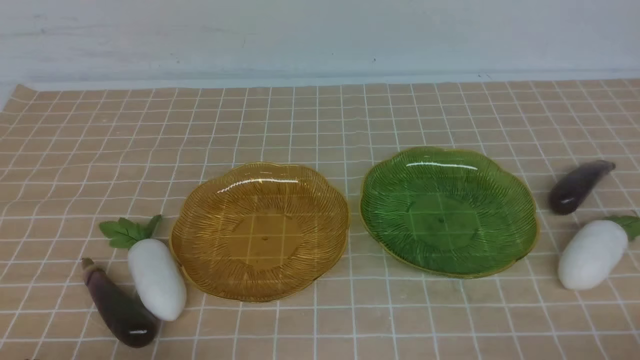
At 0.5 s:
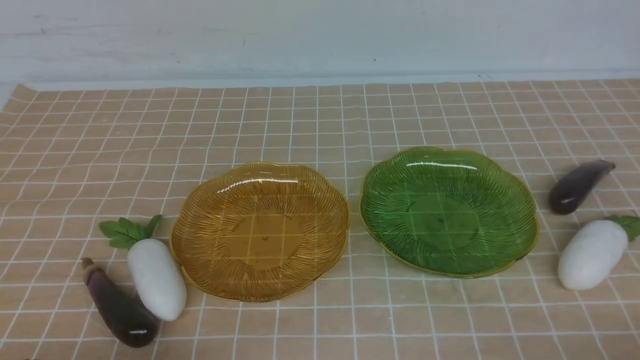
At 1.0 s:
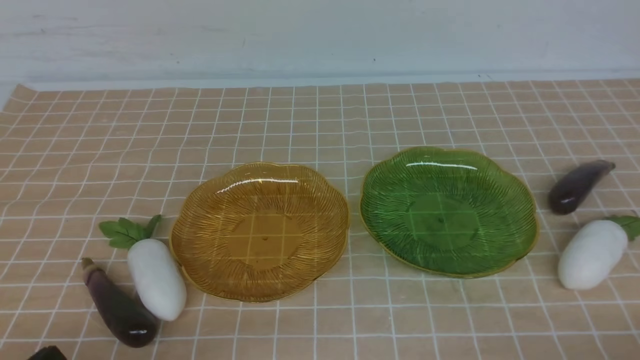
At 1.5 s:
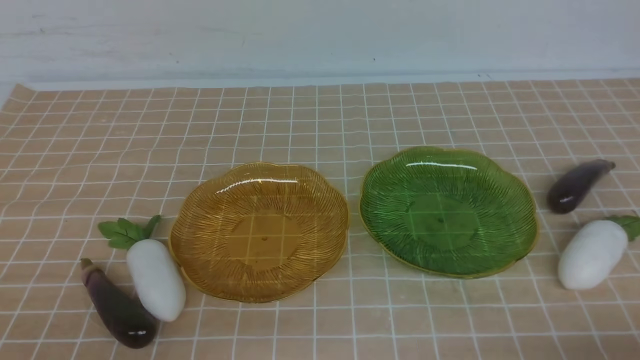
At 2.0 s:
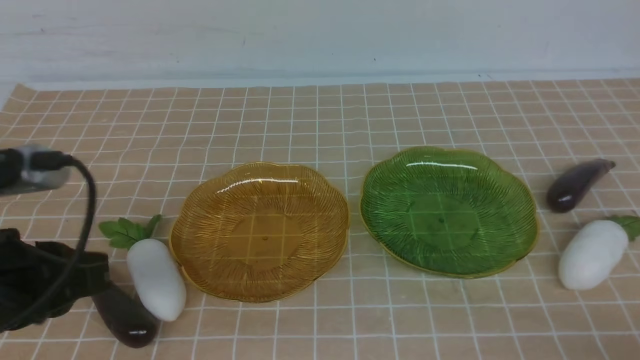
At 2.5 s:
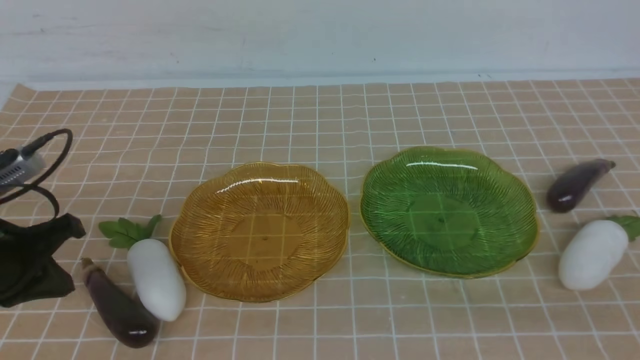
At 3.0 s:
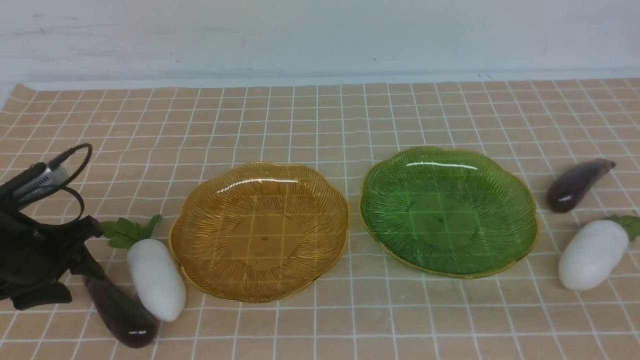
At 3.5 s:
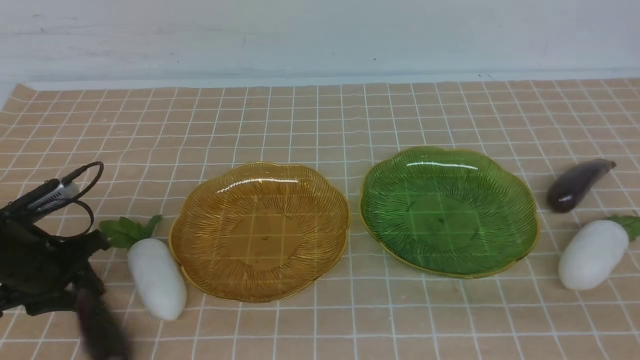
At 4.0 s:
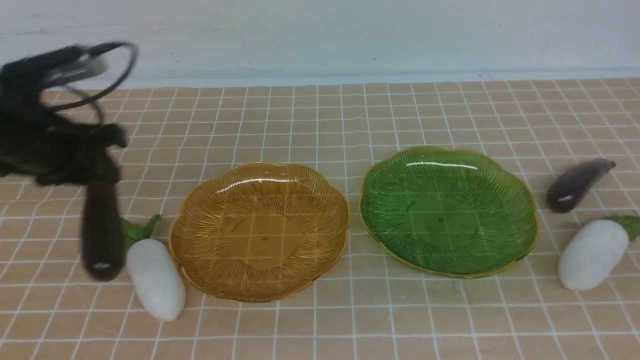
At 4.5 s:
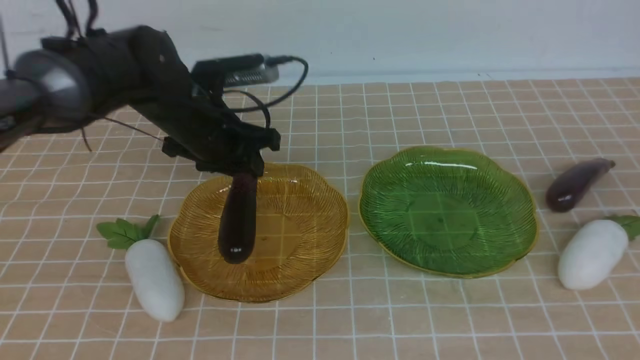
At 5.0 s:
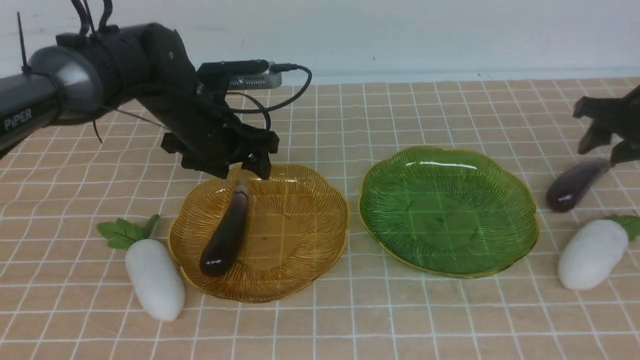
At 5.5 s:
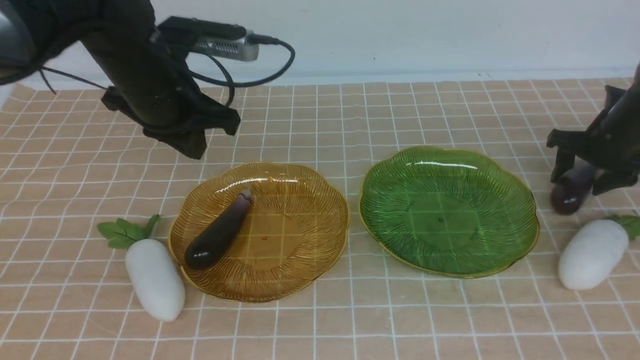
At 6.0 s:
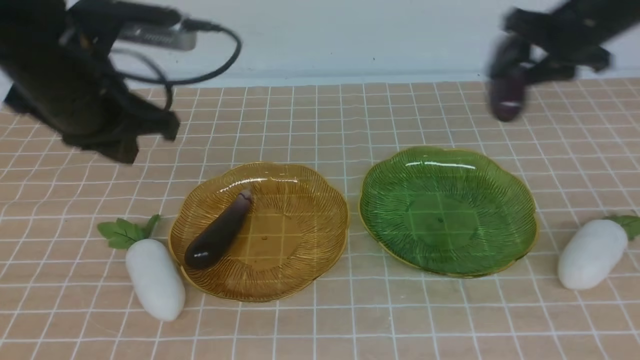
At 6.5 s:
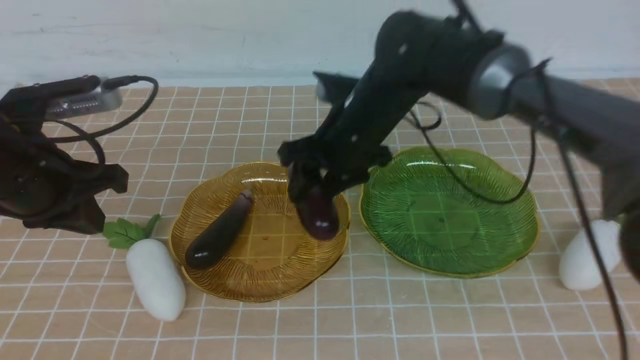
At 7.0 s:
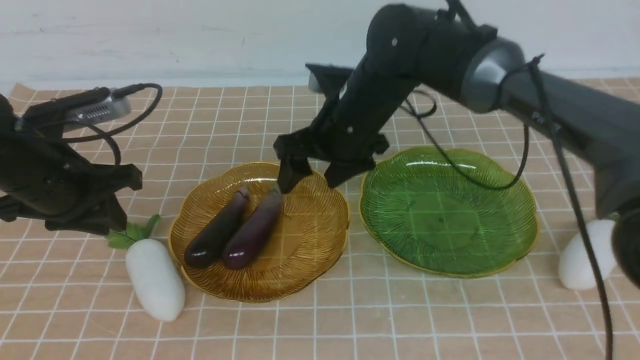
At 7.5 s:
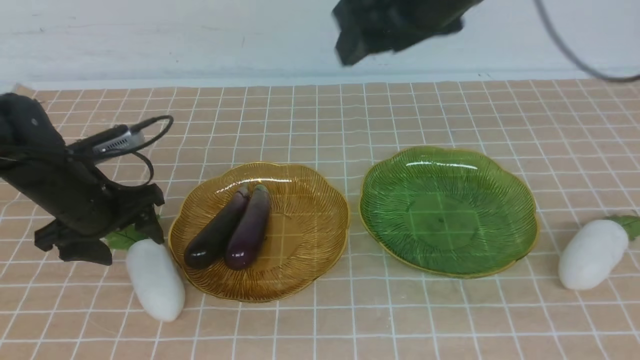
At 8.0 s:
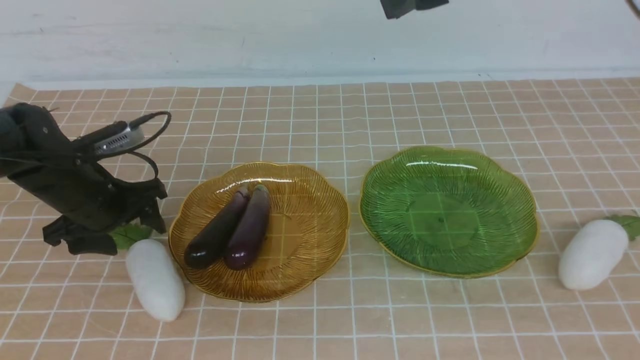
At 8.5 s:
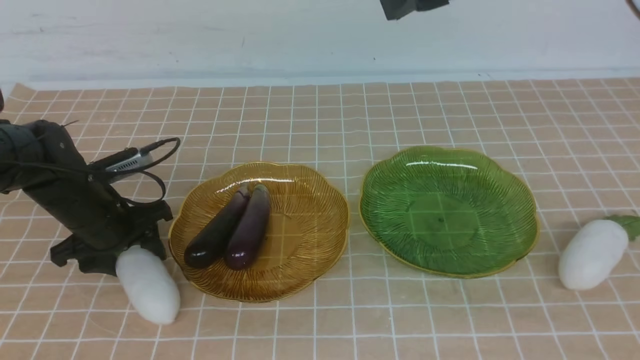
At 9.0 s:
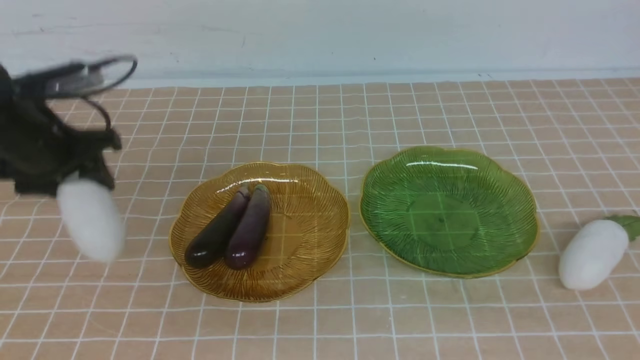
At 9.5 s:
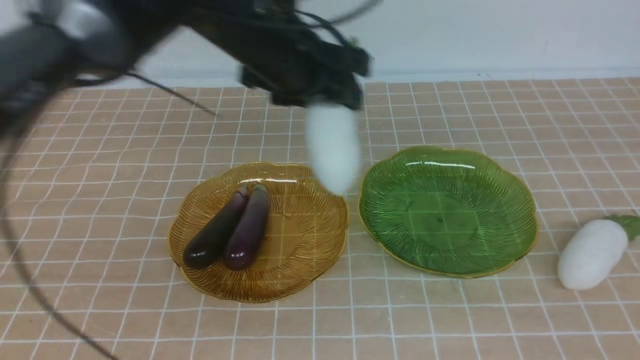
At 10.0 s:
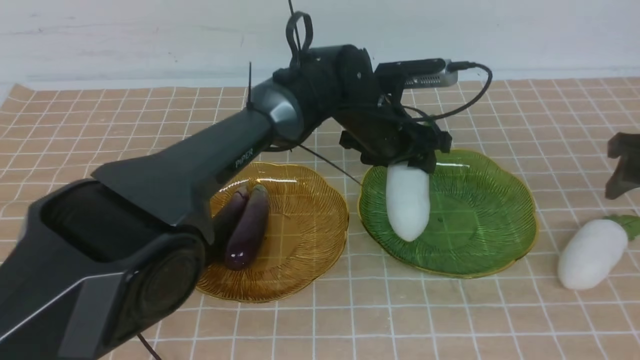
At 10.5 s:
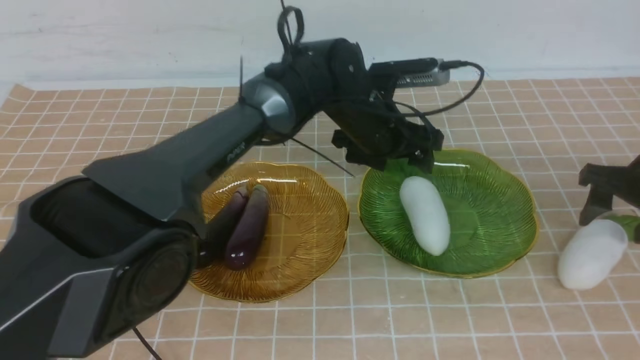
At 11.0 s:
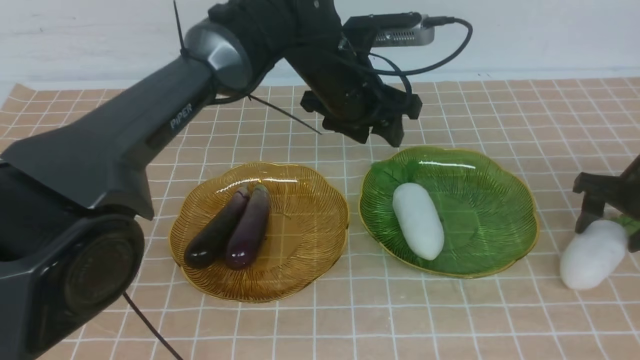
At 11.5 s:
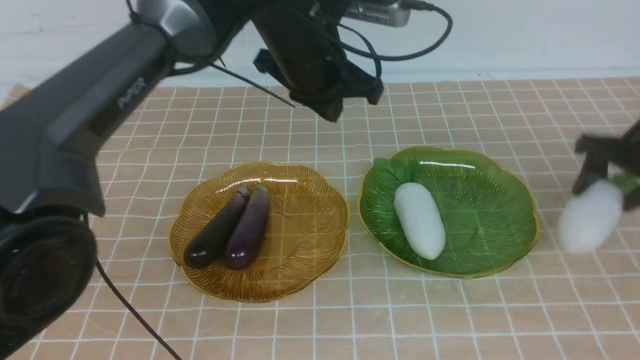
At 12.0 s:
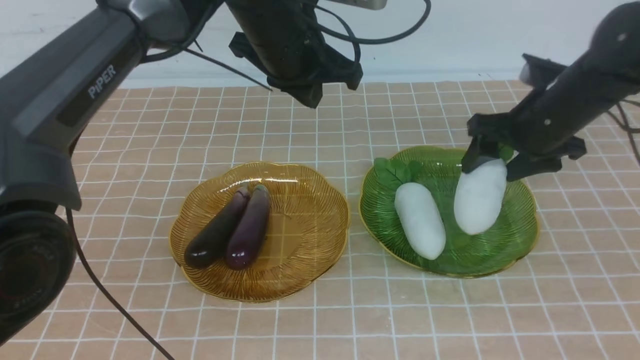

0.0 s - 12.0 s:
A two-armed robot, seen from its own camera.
Step, 0.0 s - 4.5 s: use the left arm to grab an eggplant and put it into the left plate.
Step, 5.0 s - 6.5 s: use the right arm to grab an eggplant and put it into the left plate.
Step, 7.0 s - 10.0 s: use the left arm to grab a radish and put it into the right plate.
0.0 s - 2.0 s: The left gripper shifts approximately 15 cm forward and upward.
2.0 s - 4.0 s: The right gripper shifts roughly 15 cm forward and upward, while the left gripper moves forward, about 15 cm, and opens and closes again.
4.0 s - 6.0 s: The left gripper moves backward, about 10 cm, and opens, then closes once more. Meanwhile the right gripper goes roughly 35 cm to the left and forward, and opens.
6.0 s - 8.0 s: The left gripper shifts roughly 15 cm downward and forward, and opens, while the right gripper moves upward, backward and to the right, approximately 25 cm.
8.0 s - 10.0 s: The left gripper travels to the right by some 30 cm, while the right gripper moves downward and to the right, approximately 35 cm.
10.0 s - 12.0 s: The left gripper shifts about 25 cm upward, to the left and backward, and closes up; the right gripper goes roughly 20 cm upward and to the left, and closes up.

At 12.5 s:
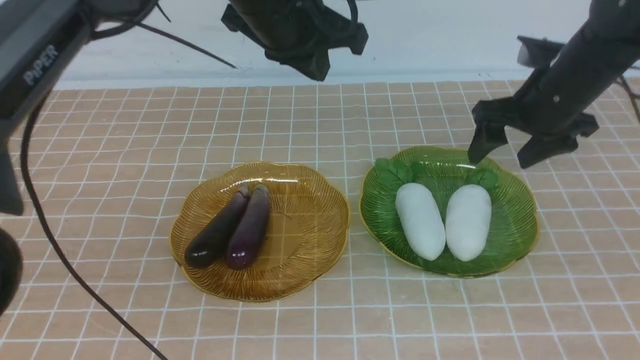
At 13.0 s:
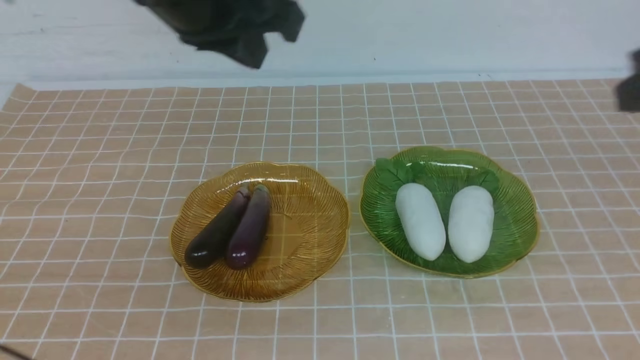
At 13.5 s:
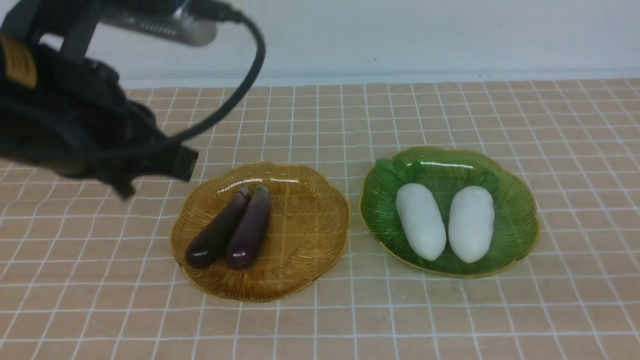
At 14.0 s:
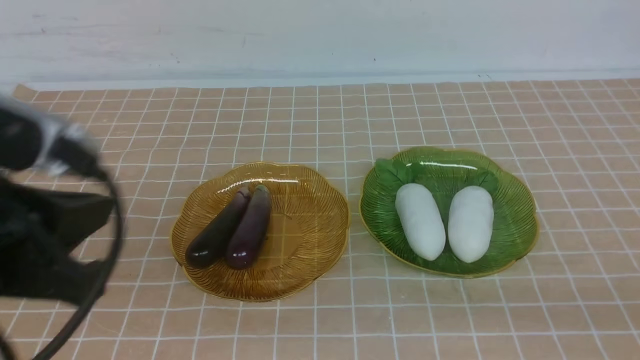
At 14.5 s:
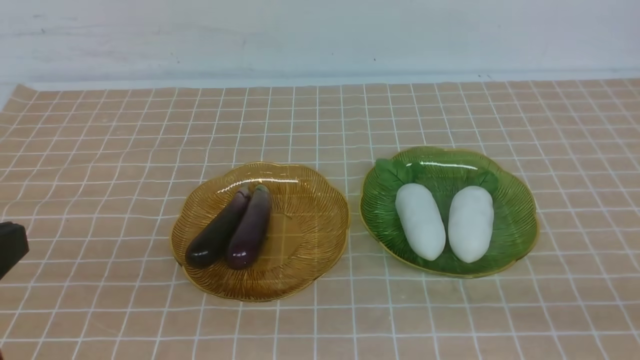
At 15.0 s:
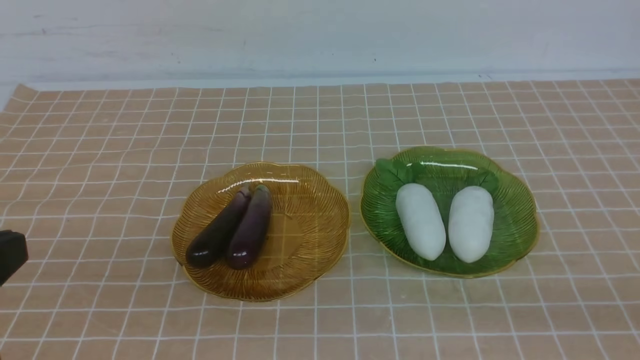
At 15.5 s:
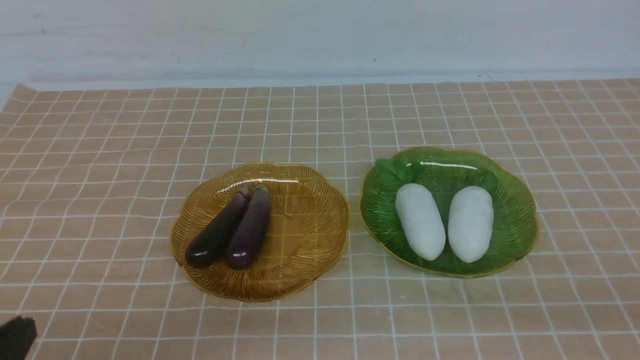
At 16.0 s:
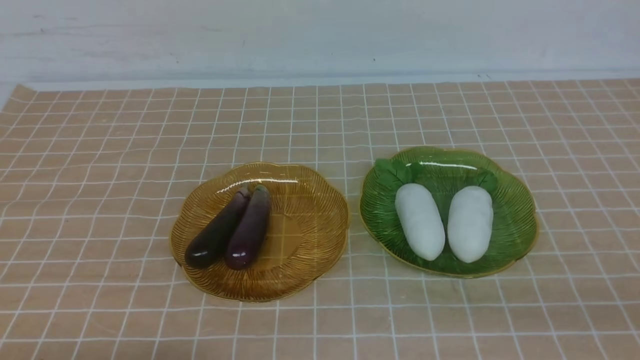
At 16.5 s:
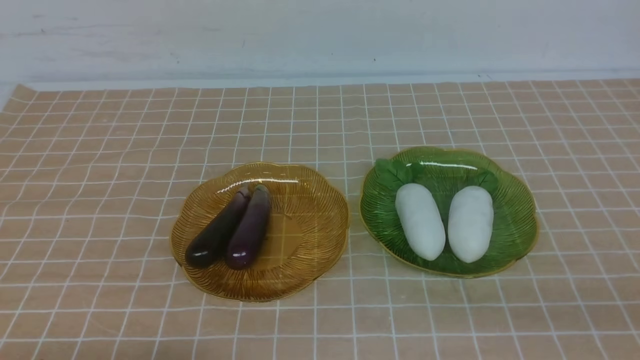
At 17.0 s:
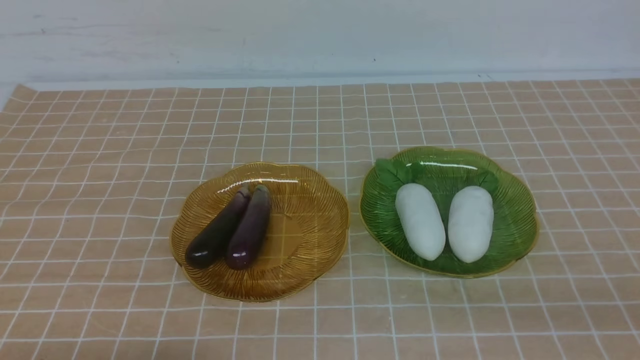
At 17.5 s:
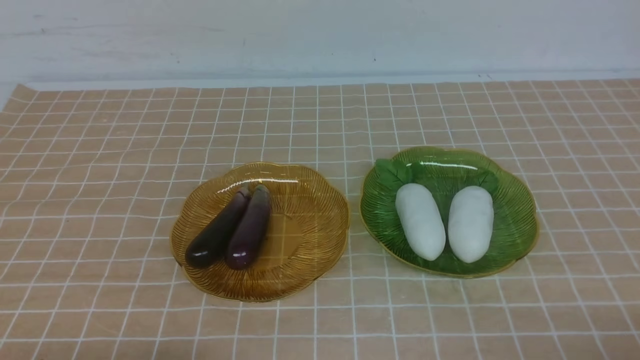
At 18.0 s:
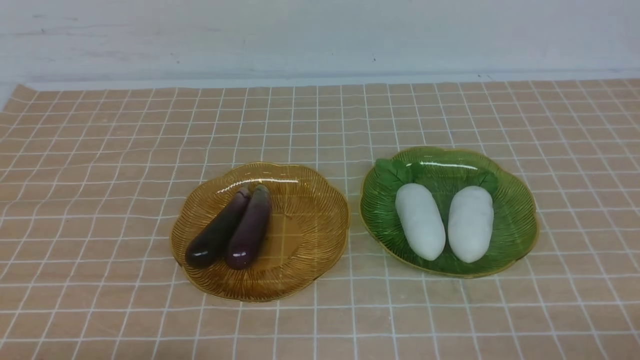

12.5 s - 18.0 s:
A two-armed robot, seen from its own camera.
12.5 s - 14.5 s: The right gripper moves downward and backward, about 10 cm. Meanwhile the left gripper is displaced backward, downward and to the left by approximately 25 cm.
14.5 s - 16.0 s: The left gripper is displaced downward by roughly 15 cm.
